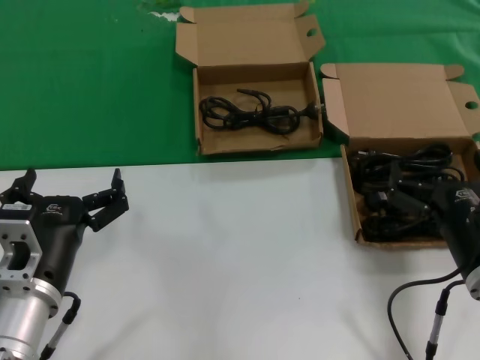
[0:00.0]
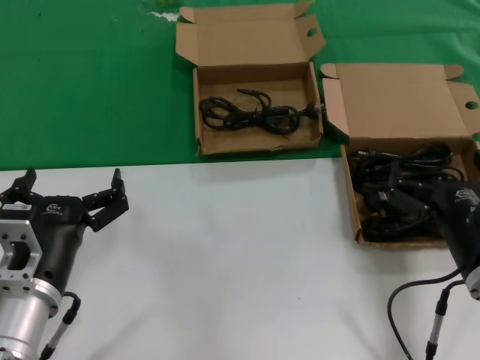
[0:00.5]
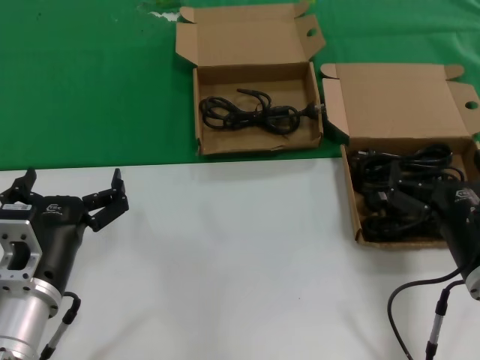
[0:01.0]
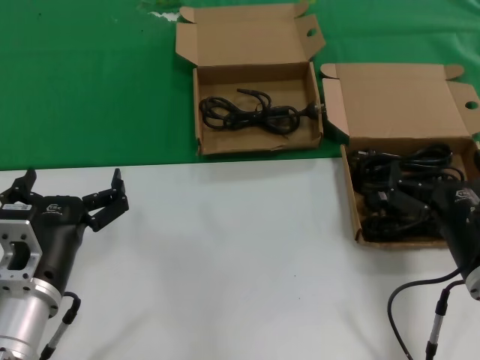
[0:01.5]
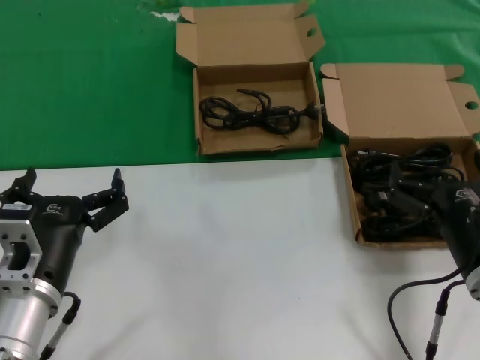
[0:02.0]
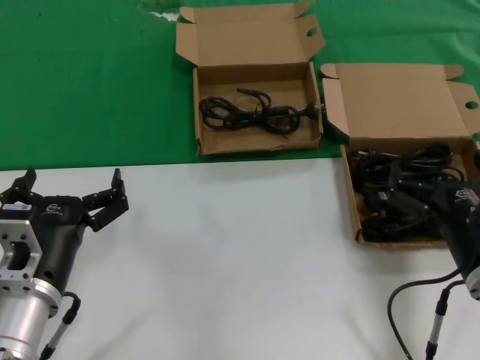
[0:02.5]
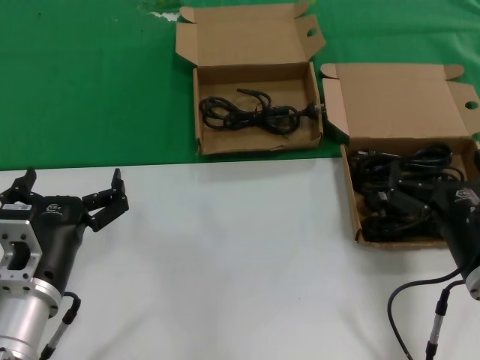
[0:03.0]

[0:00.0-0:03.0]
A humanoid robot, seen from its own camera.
Task of the whole recording: take the parts from the box containing them and put them into an empty box.
0.0 to 3.0 s: Both hands stay put.

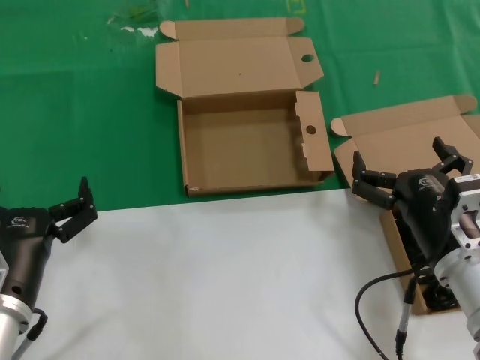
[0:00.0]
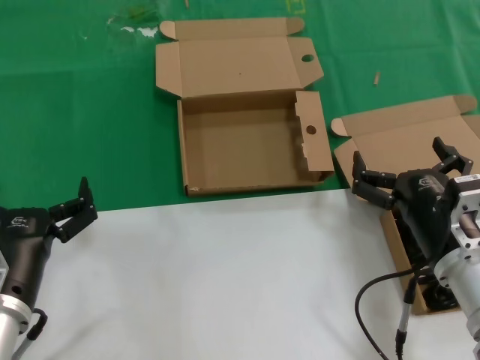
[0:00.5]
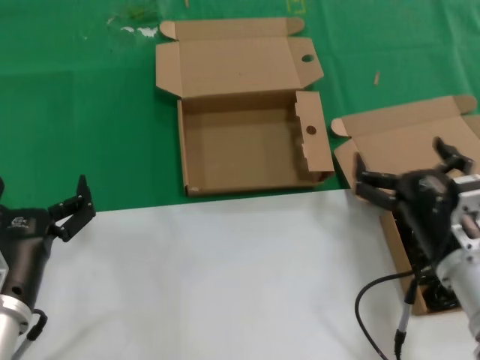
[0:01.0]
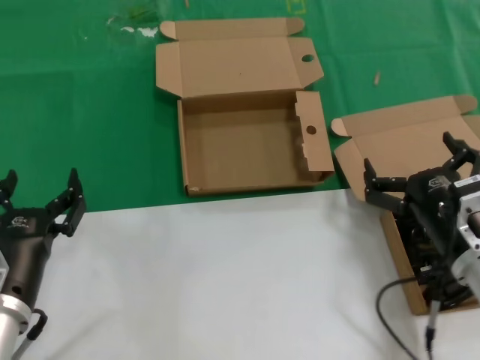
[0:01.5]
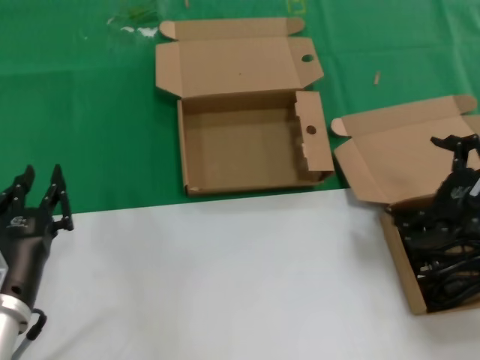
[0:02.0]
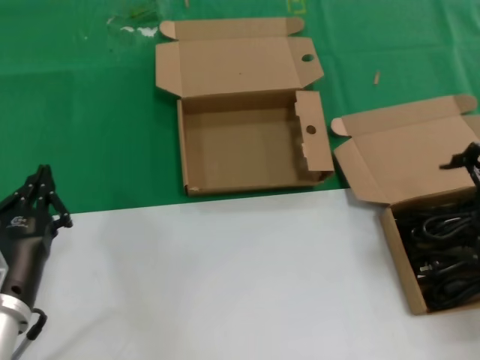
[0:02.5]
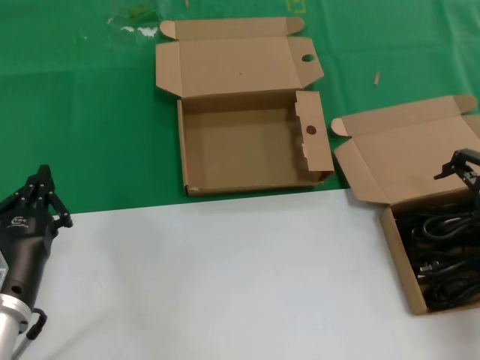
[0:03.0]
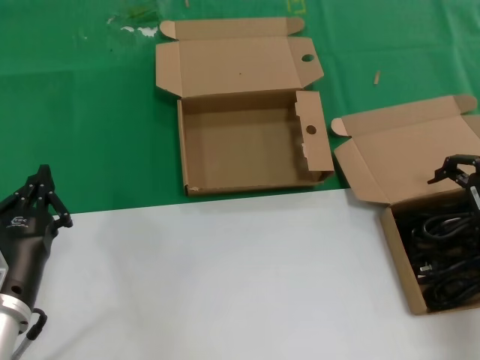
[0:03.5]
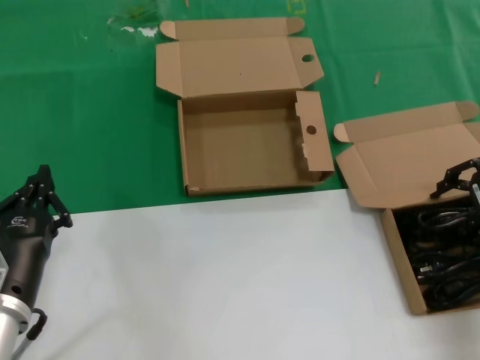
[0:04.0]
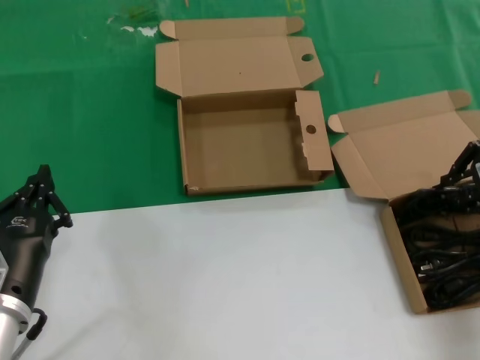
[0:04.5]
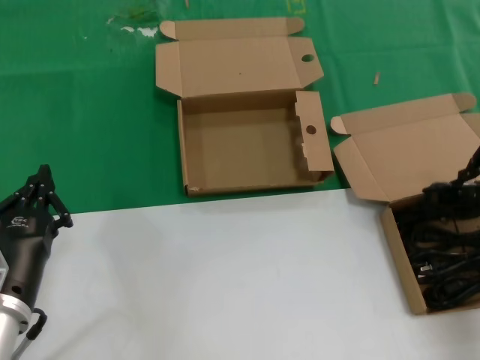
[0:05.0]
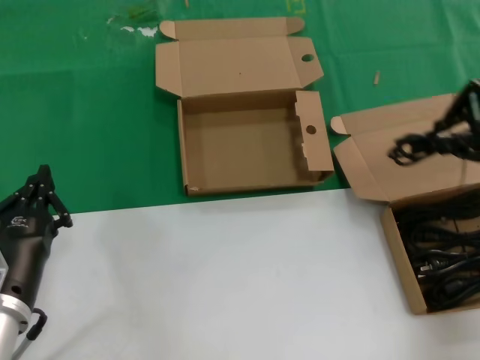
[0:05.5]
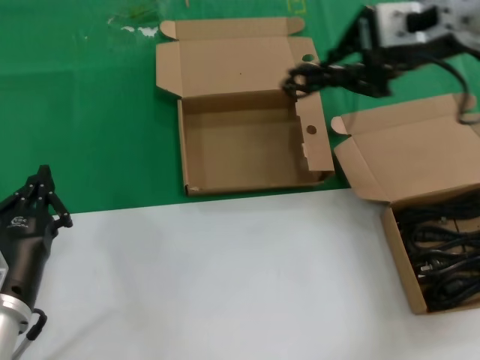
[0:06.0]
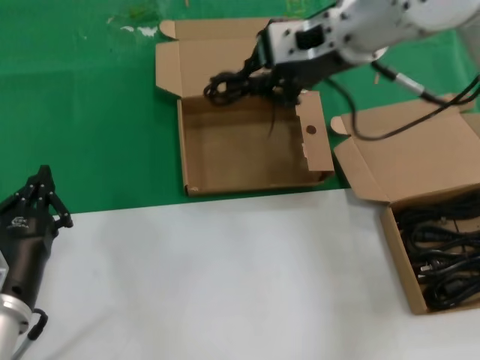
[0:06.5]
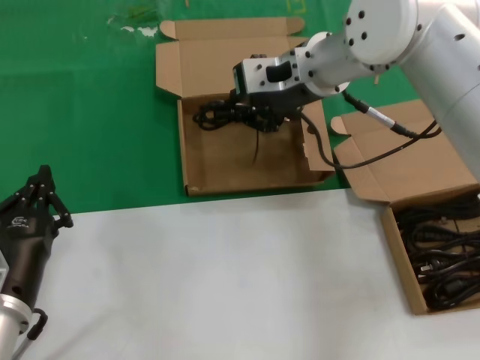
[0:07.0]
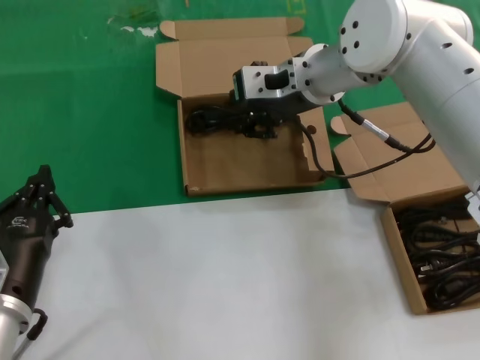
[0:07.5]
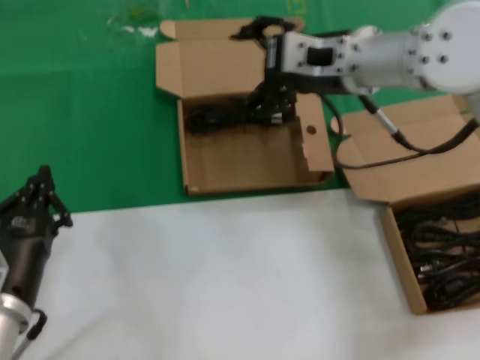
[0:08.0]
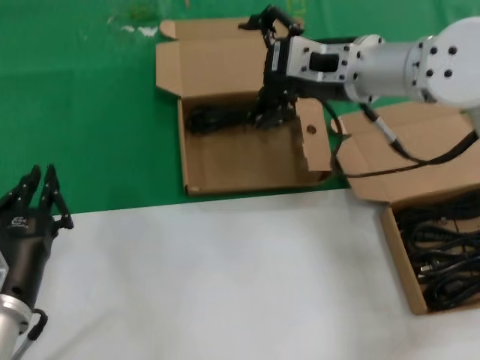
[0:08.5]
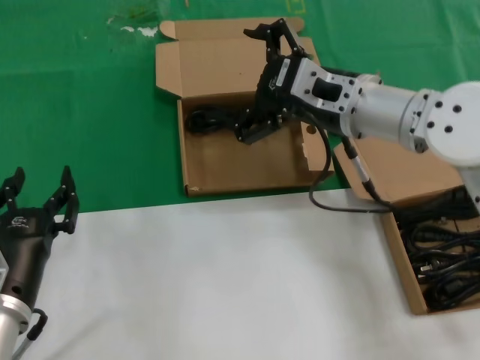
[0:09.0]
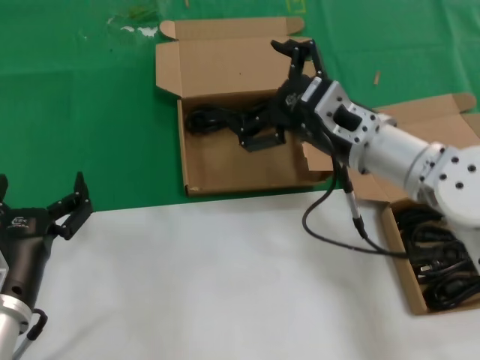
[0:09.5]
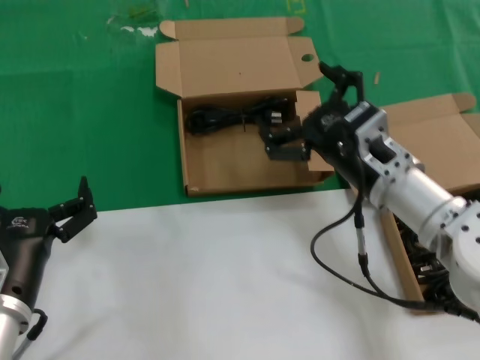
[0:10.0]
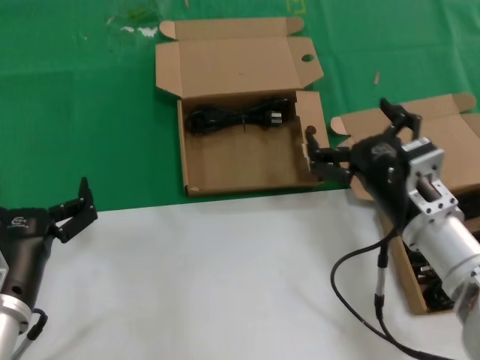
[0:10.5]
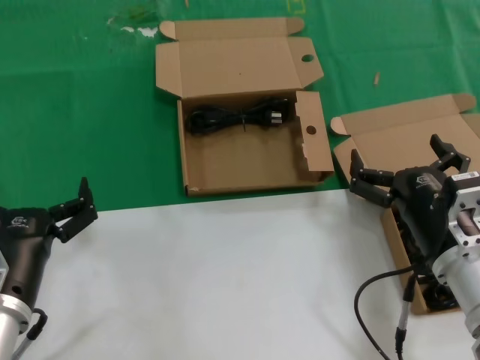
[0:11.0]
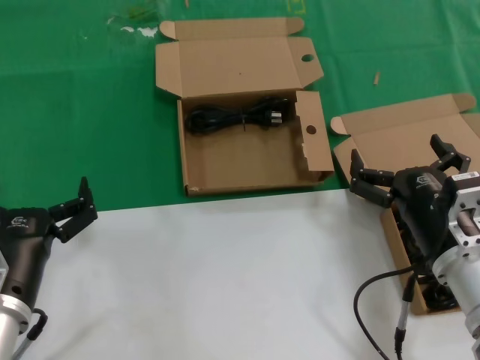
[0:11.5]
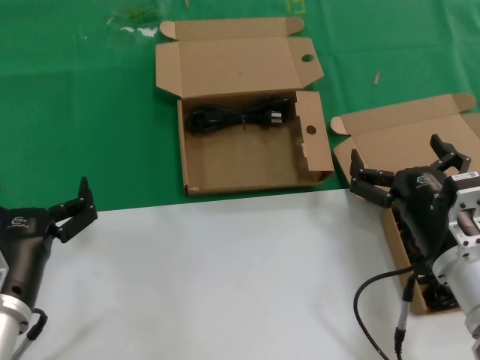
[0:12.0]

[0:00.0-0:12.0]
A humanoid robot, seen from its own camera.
Task of the whole recording: take the parts from the box containing them and put them into an empty box.
Step, 0.0 to 4.0 s: Grasp the data cable.
Step, 4.5 to 7.5 s: Place the data cable in the another box.
0.0 to 2.0 s: The right hand travels to the right and upward by approximately 15 cm.
2.0 to 4.0 s: The right hand moves forward, upward and to the right, some 15 cm.
4.0 to 6.0 s: The right hand goes some 20 cm upward and to the left.
6.0 to 8.0 s: The right hand moves downward and to the left, roughly 10 cm.
8.0 to 10.0 s: The right hand is displaced downward and backward by roughly 20 cm.
10.0 to 12.0 s: The right hand heads backward and downward, covering roughly 10 cm.

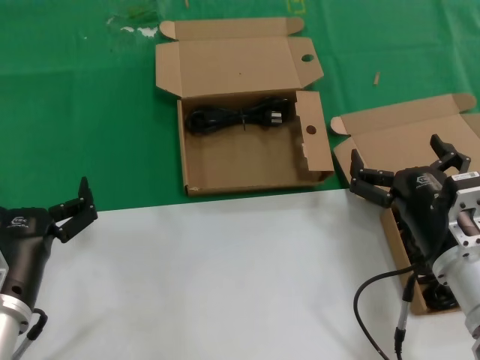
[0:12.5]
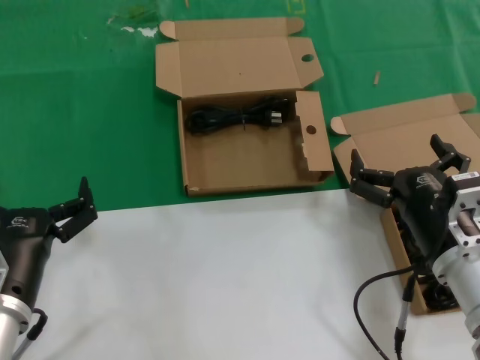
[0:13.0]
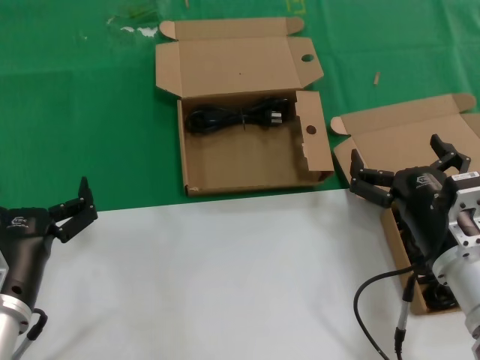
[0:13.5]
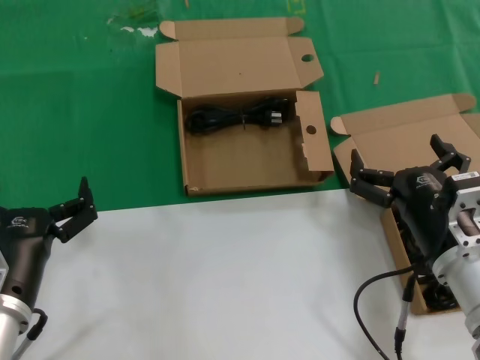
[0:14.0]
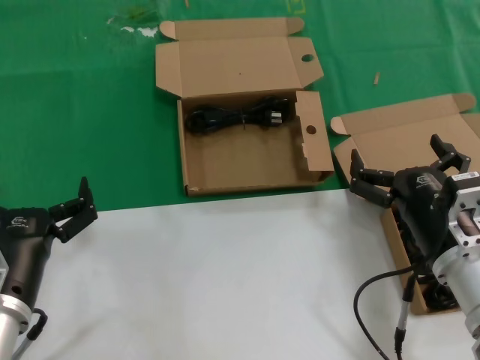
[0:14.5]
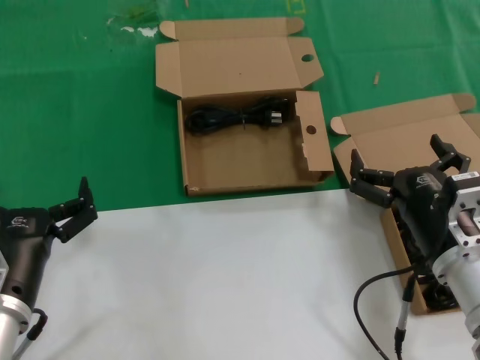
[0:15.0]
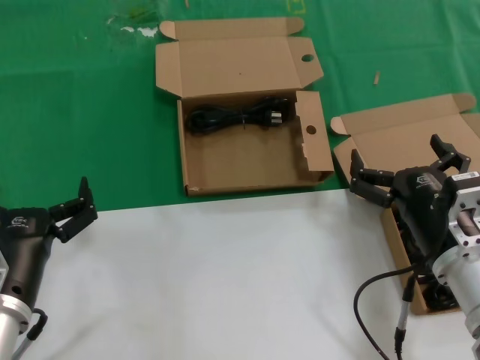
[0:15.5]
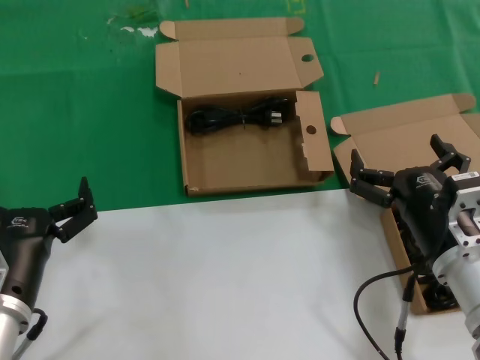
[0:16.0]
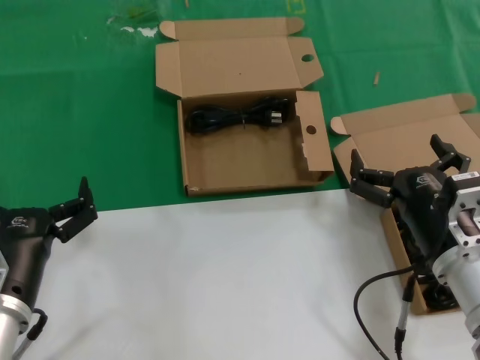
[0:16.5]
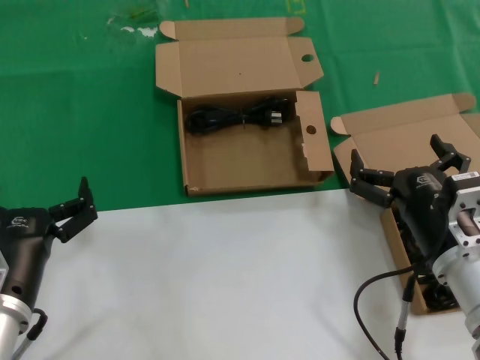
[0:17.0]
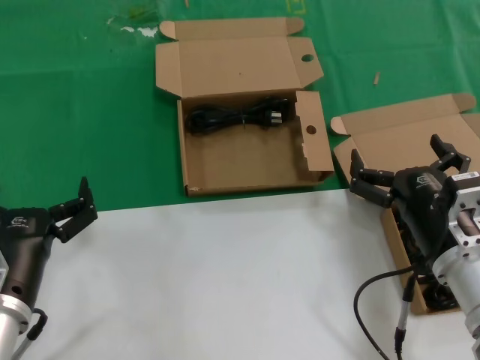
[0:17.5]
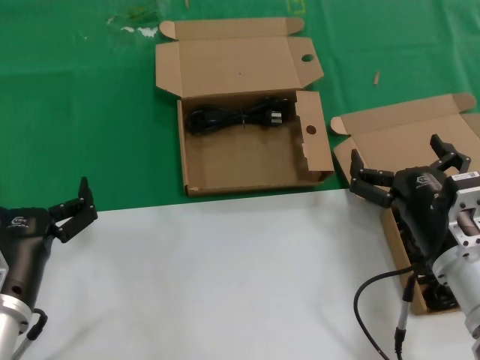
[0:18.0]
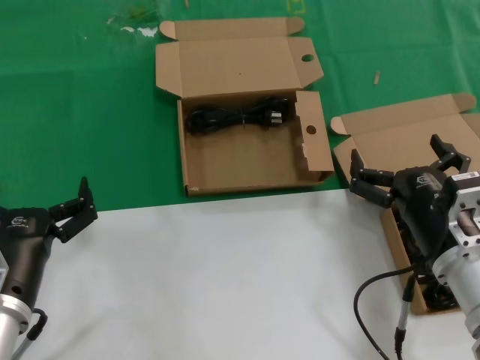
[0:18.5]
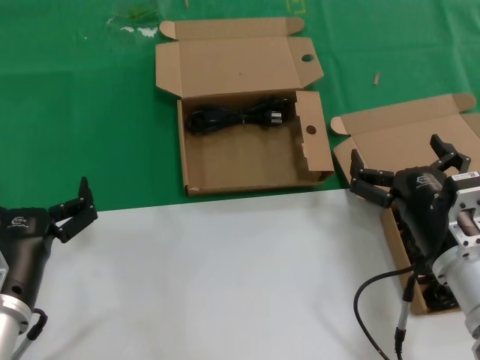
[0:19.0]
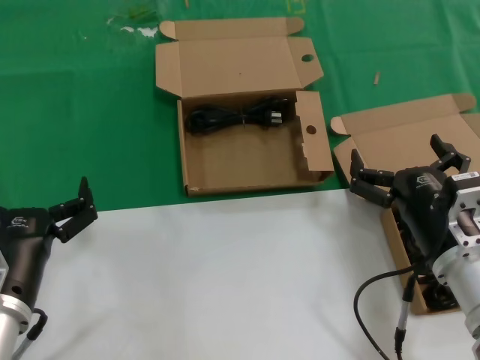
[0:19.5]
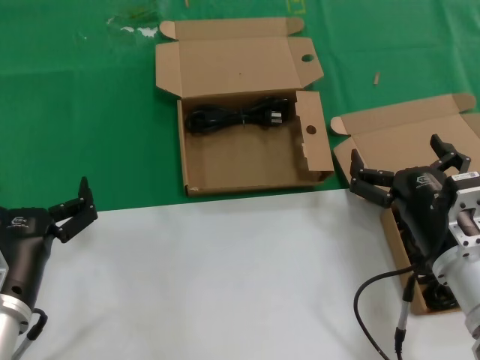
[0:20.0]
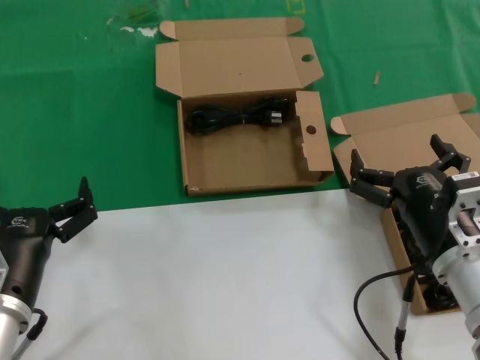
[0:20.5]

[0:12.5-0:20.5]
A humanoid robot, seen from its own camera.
Task of the whole recording: take the parts from the box containing them and put them into an empty box.
12.5 to 20.5 s: Both hands stay put.

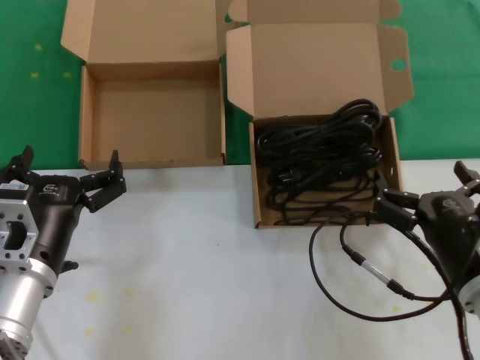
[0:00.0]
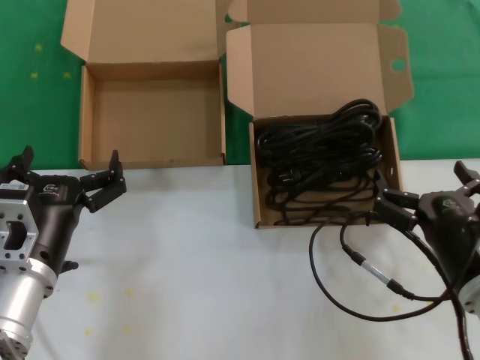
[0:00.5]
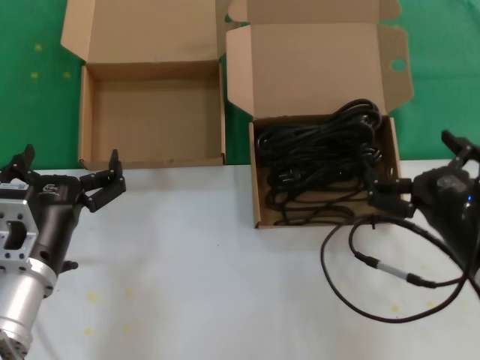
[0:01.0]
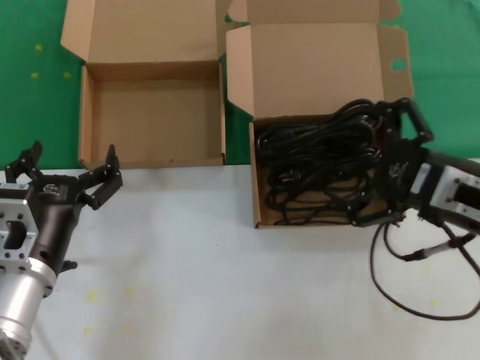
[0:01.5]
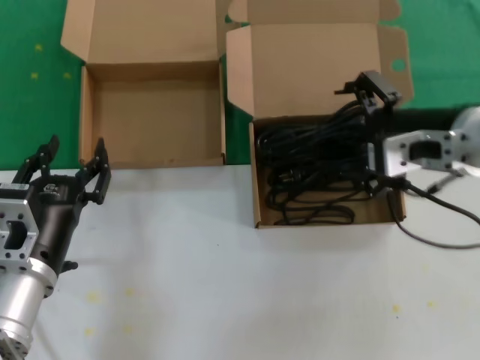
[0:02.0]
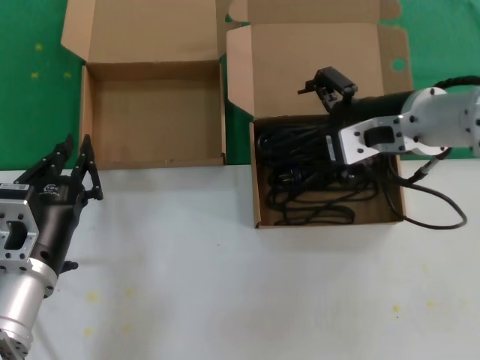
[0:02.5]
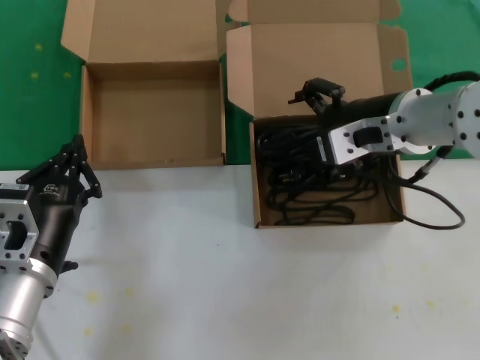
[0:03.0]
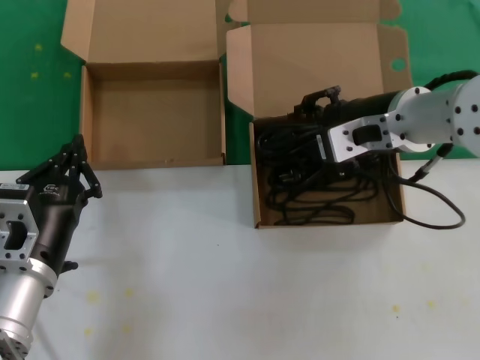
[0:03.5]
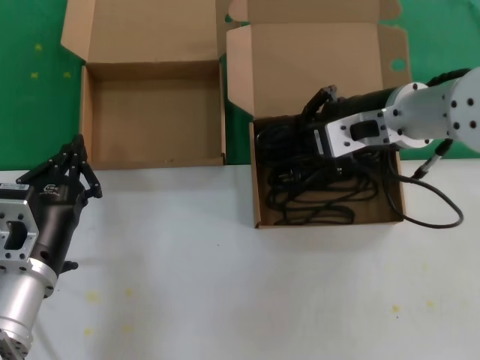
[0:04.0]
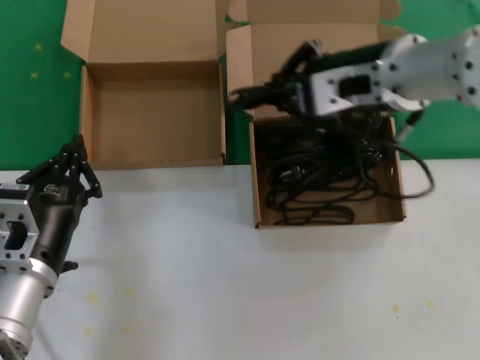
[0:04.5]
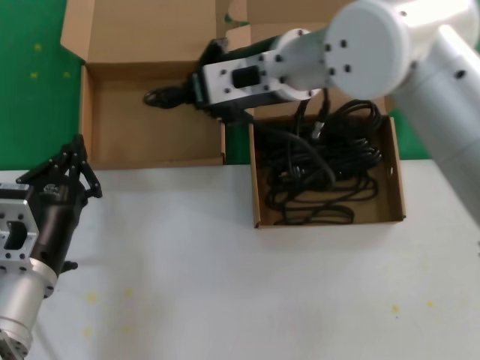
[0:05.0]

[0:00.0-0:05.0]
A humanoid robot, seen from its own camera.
Task of the whole recording: take the parts from the box containing them and put them into an empty box.
Step, 0.0 to 3.5 s: Grasp the data cable.
0.0 to 2.5 s: The right hand travels upward and forward by some 25 cm.
2.5 to 5.0 s: The right hand shifts some 15 cm to the left.
